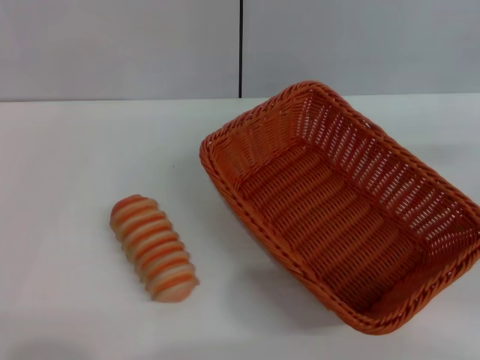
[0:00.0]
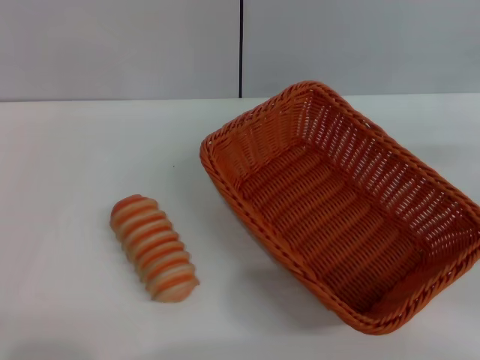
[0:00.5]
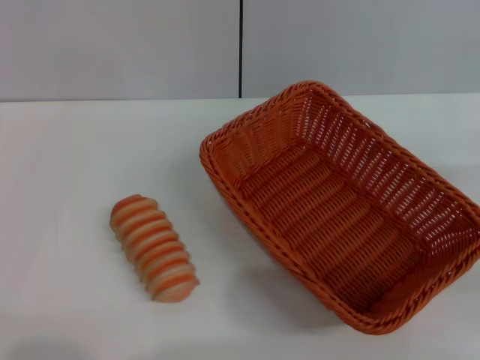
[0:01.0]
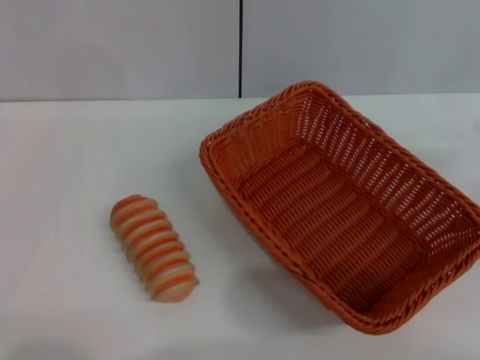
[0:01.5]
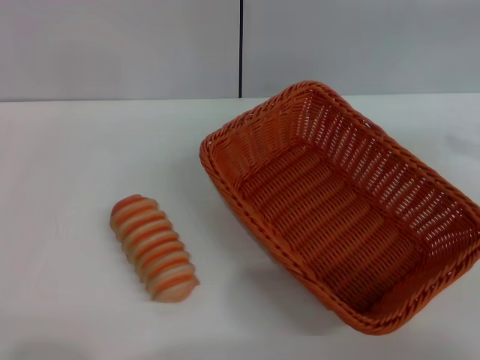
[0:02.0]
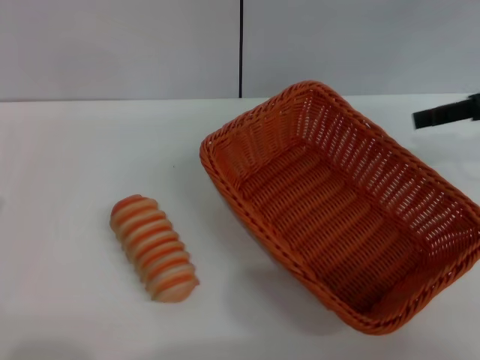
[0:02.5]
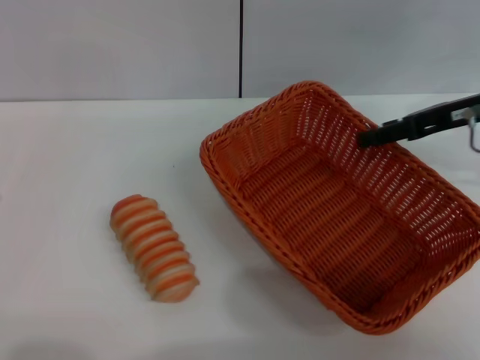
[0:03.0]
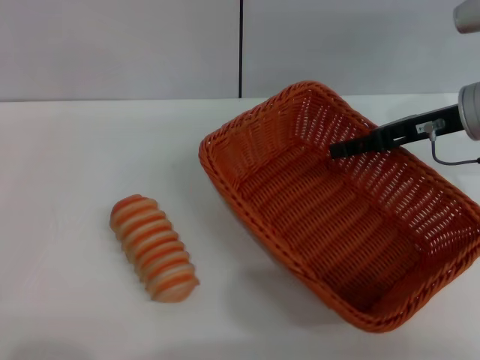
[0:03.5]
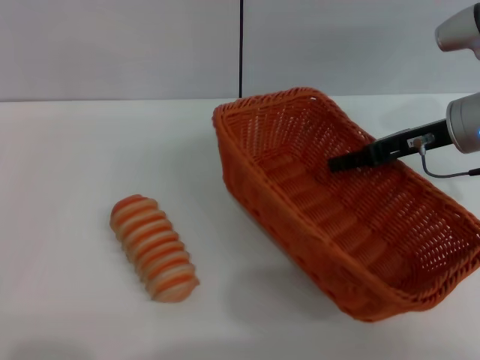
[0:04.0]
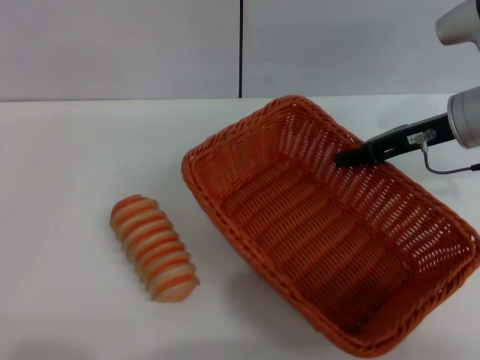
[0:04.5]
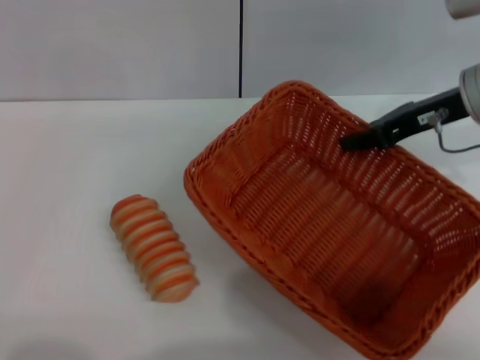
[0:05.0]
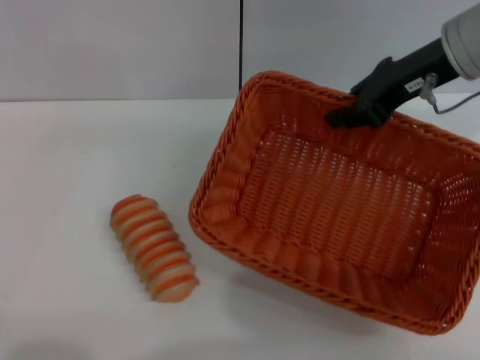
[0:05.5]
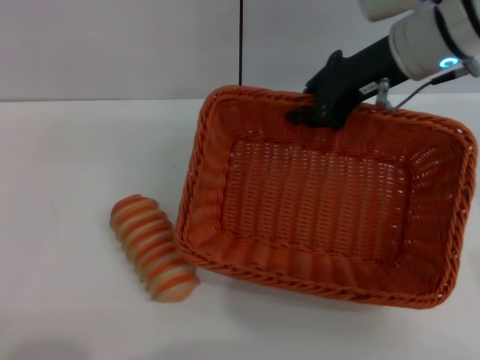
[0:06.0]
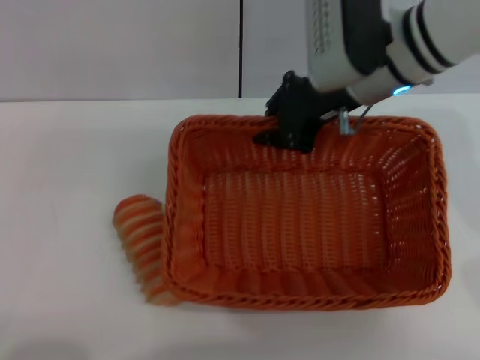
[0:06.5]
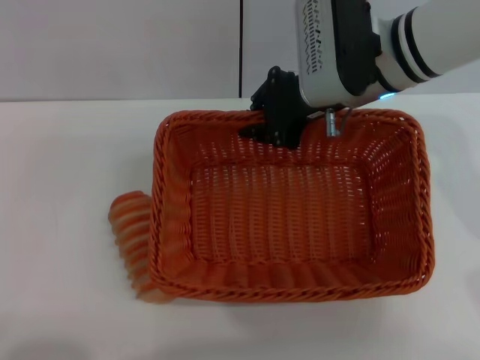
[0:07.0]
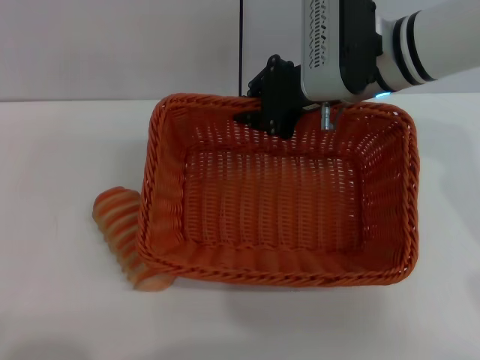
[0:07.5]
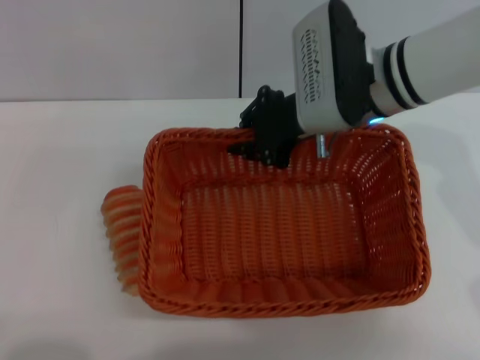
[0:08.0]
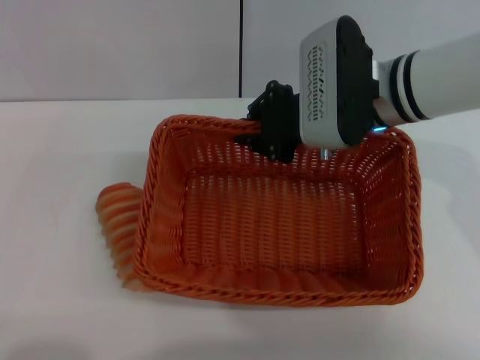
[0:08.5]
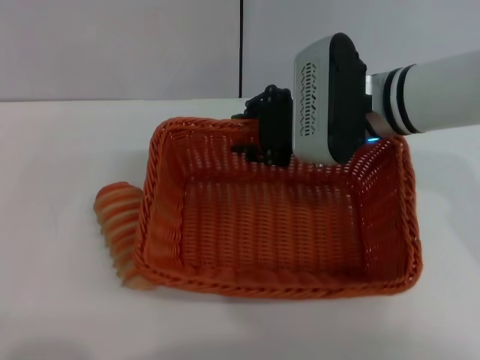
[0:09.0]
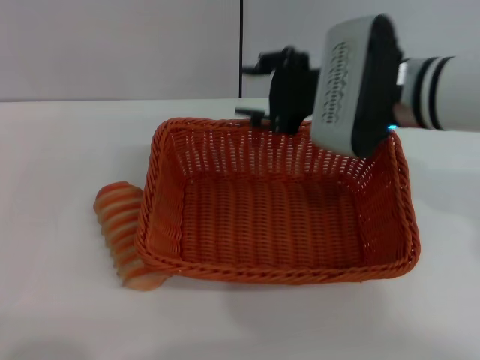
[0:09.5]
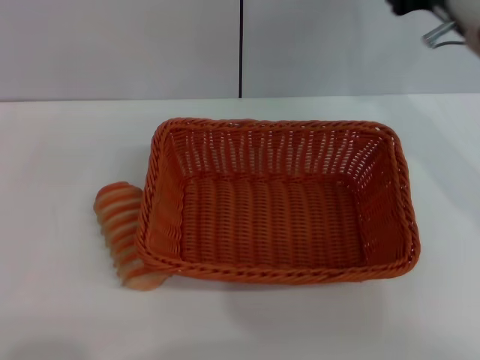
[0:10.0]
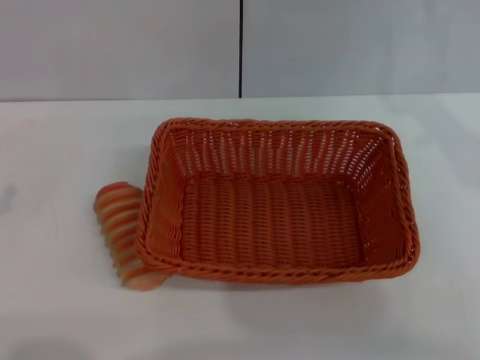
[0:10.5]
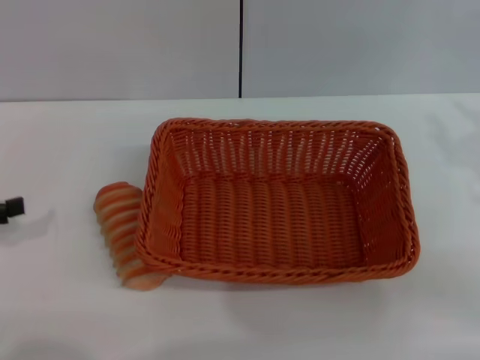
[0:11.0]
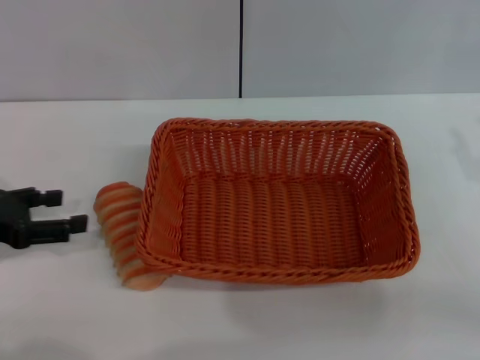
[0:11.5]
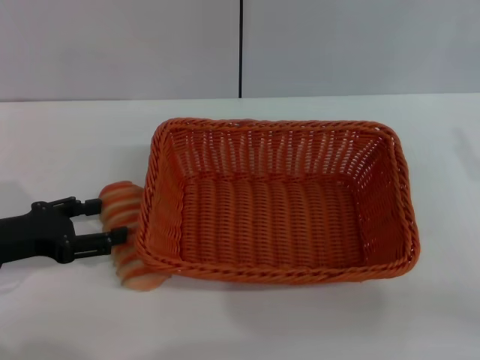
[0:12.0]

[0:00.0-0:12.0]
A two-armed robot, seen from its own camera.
Step, 0:00.0 to 0:06.0: Pick up the light basket with the right gripper.
Step, 0:06.5 to 0:09.5: Place the light basket in the center of view with the right gripper.
0:00.0 to 0:02.0: The right gripper heads upward and forward, covering approximately 15 cm.
0:02.0 to 0:04.0: The right gripper heads to the left, downward and forward, covering some 20 cm.
0:04.0 to 0:06.0: The left gripper shifts about 5 cm backward. Meanwhile the right gripper travels upward and to the left by some 10 cm, and closes.
0:06.0 to 0:08.0: The right gripper is displaced to the left by approximately 5 cm.
0:08.0 to 0:10.0: The right gripper shifts about 10 cm to the right, and opens. The left gripper changes place by roughly 5 cm.
0:10.0 to 0:12.0: The left gripper heads forward and to the right, covering some 15 cm, while the right gripper travels backward, to the right and downward by some 20 cm.

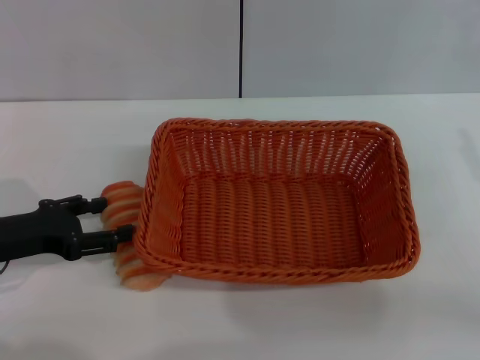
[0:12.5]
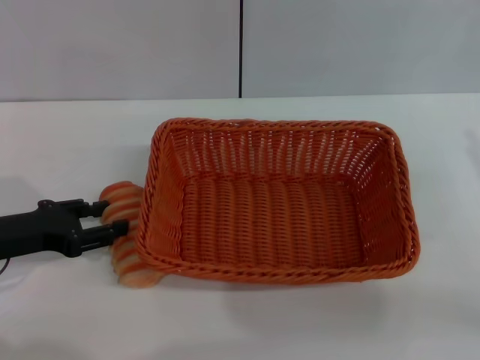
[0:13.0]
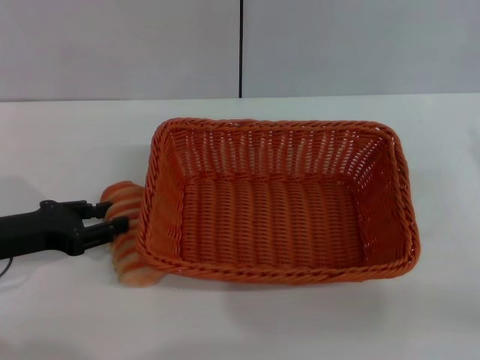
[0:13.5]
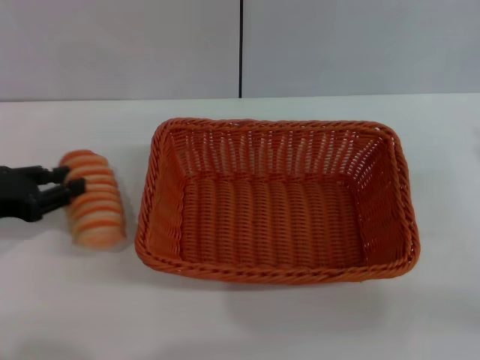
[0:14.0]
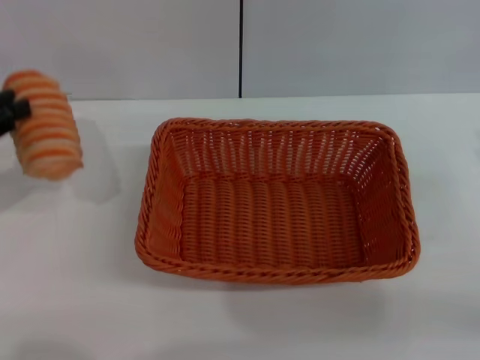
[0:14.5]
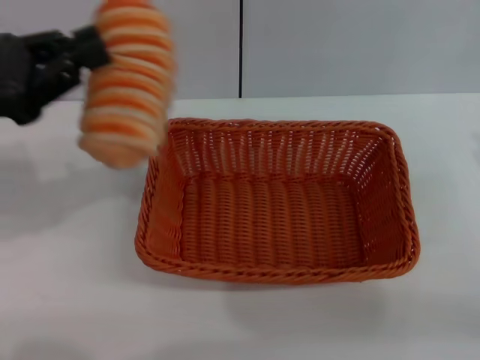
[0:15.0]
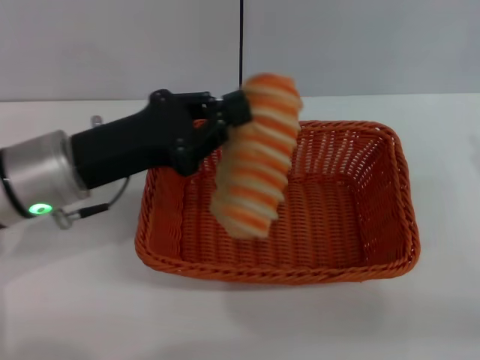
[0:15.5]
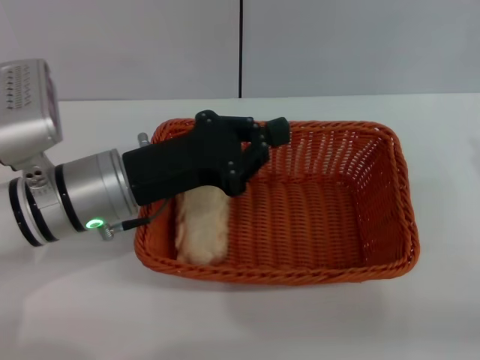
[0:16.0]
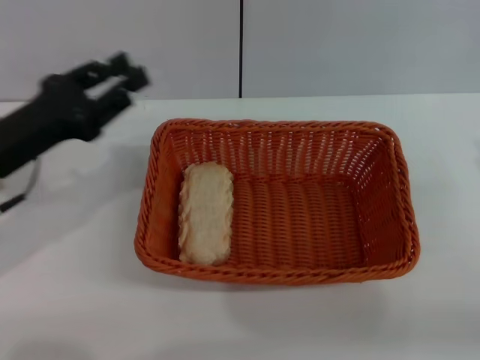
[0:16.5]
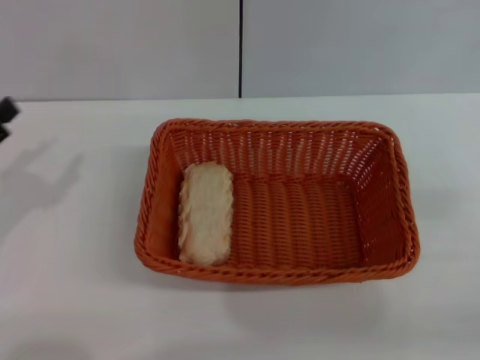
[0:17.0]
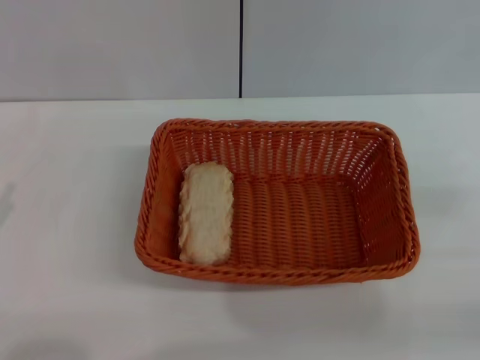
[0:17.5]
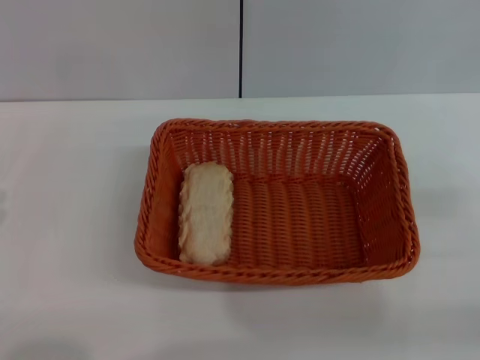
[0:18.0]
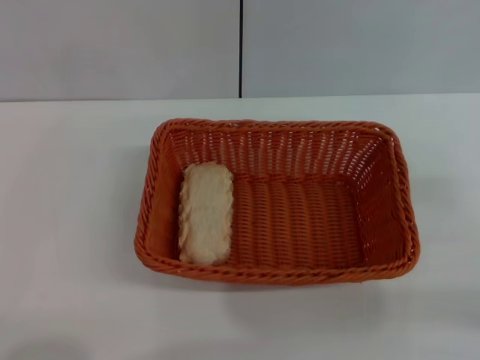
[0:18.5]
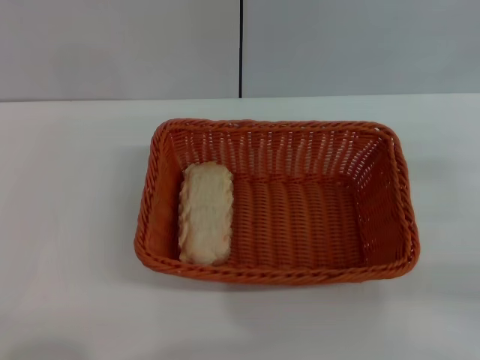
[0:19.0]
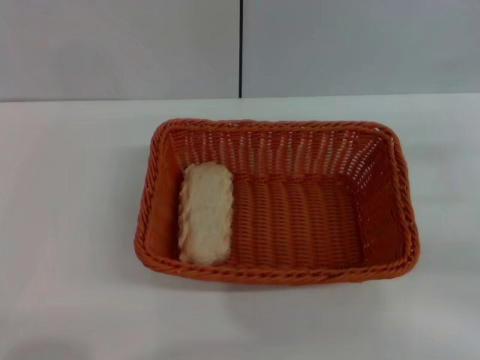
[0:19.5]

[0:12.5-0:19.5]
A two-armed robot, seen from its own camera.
Step, 0:15.0 to 0:16.0: Place the long bread into the light basket with the left gripper.
0:12.5 to 0:14.5: The left gripper goes roughly 10 cm upward and to the left, and closes up.
0:14.5 to 0:16.0: The left gripper goes approximately 20 cm to the right.
0:16.0 to 0:17.5: The left gripper is displaced to the left and backward by about 25 cm, and opens.

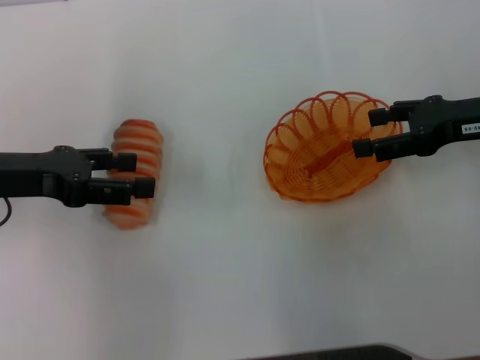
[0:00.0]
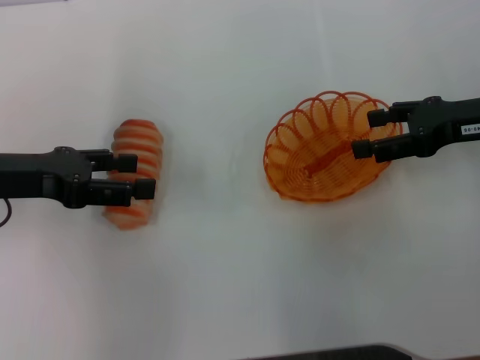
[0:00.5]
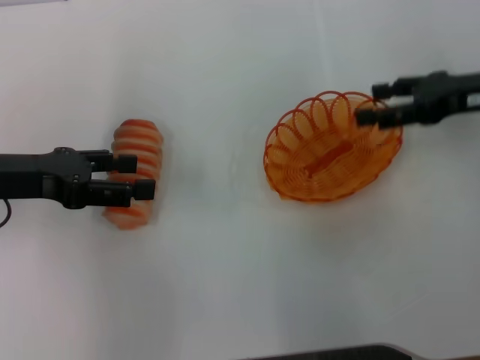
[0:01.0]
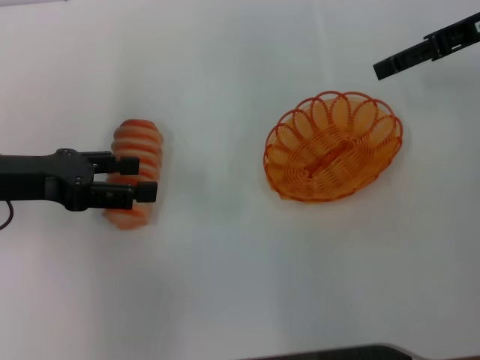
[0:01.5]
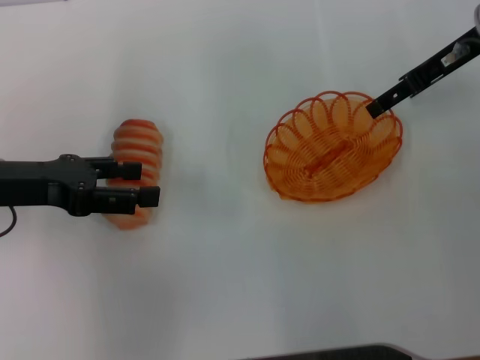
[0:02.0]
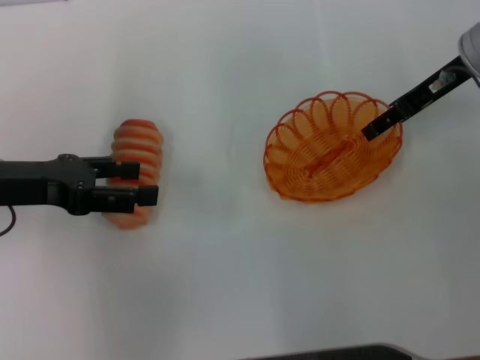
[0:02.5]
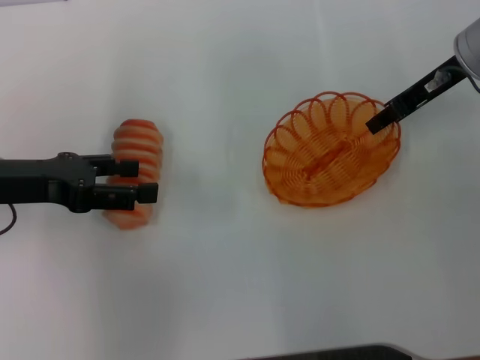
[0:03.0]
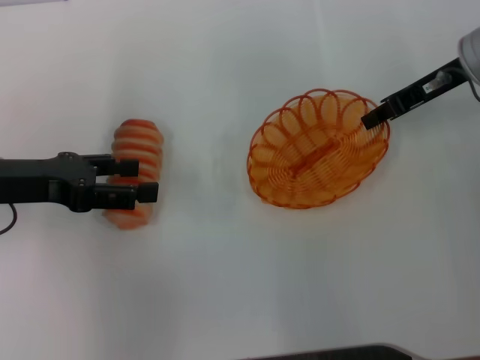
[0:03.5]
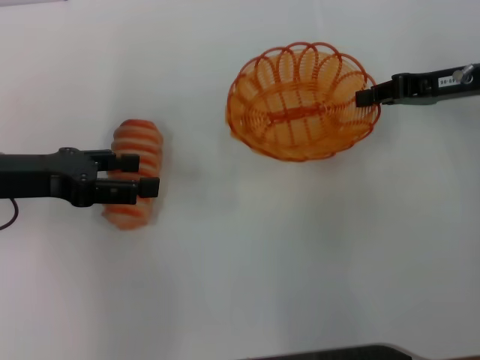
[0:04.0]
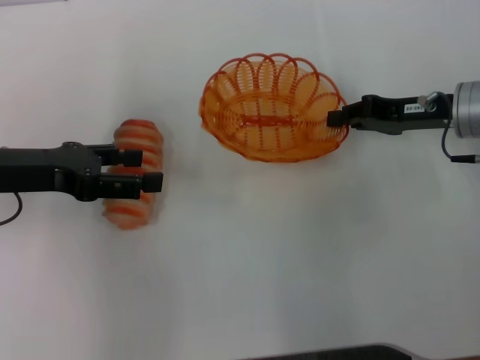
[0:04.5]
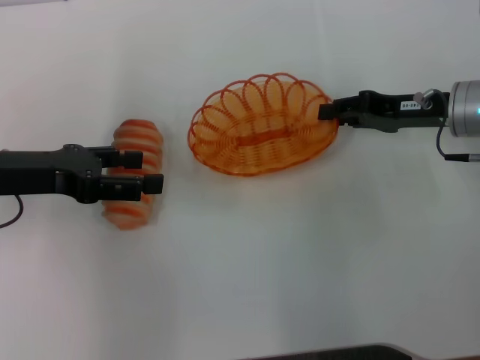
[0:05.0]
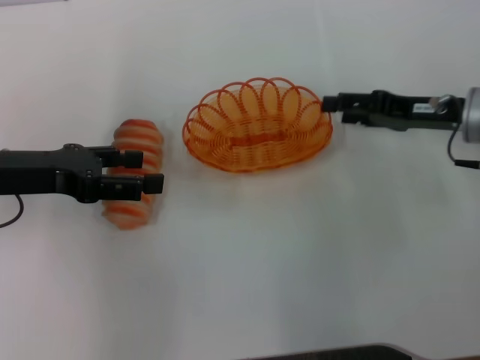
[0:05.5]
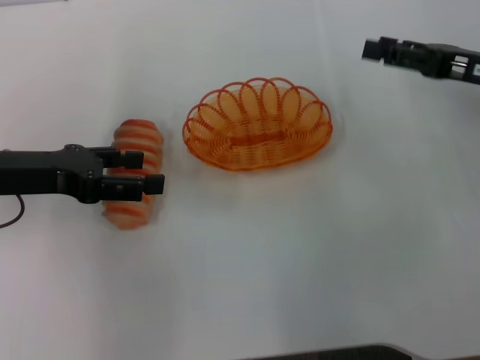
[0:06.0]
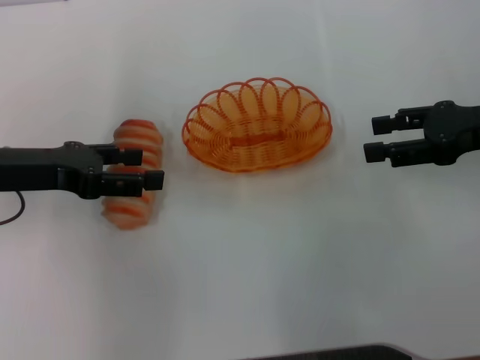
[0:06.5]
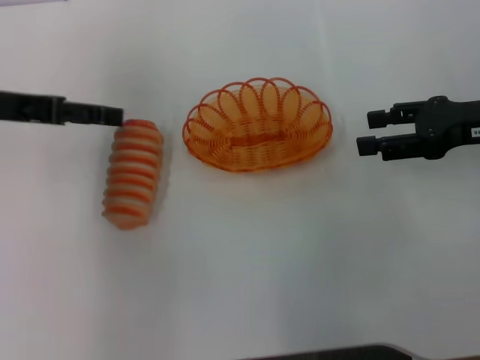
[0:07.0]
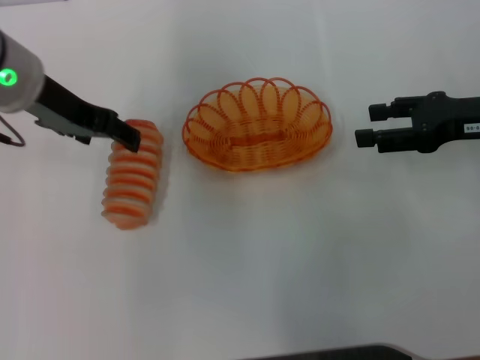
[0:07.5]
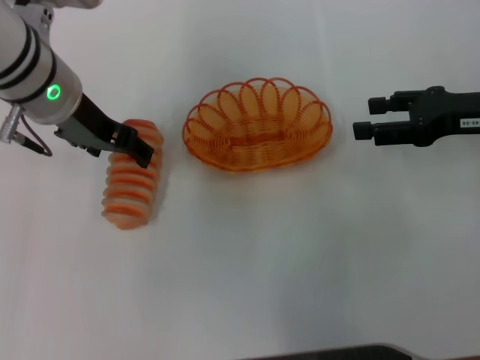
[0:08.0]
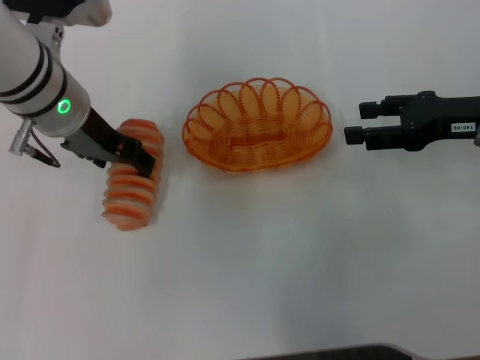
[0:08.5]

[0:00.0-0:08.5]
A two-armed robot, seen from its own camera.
Step, 0:00.0 to 0:03.5: Pick up the basket with the right gripper.
Step, 0:04.0 to 0:05.5: Place the basket in the center of view with the right gripper.
0:00.0 to 0:02.0: The right gripper heads forward, covering approximately 10 cm.
0:02.0 to 0:04.0: The right gripper ends up approximately 5 cm from where it was, and closes.
0:04.0 to 0:06.5: The right gripper goes about 5 cm backward, and opens up.
0:06.5 to 0:08.5: The left gripper goes approximately 15 cm to the right and forward.
